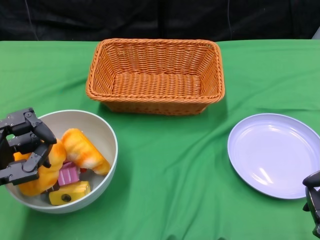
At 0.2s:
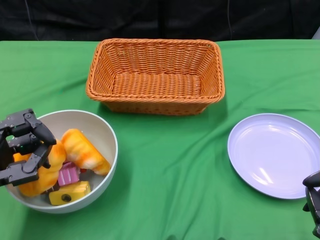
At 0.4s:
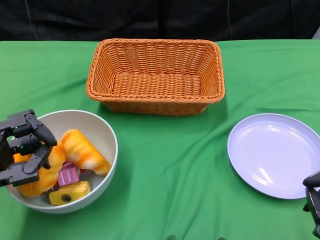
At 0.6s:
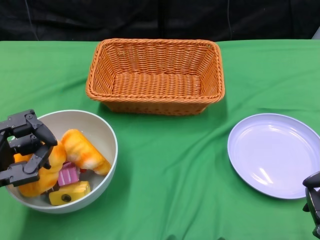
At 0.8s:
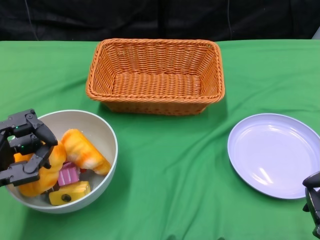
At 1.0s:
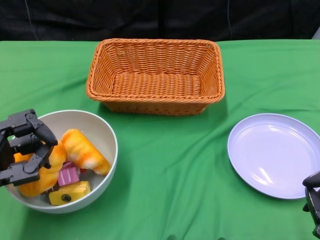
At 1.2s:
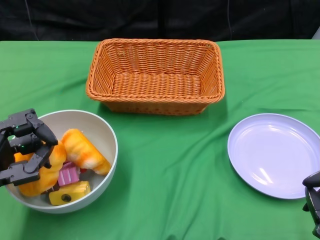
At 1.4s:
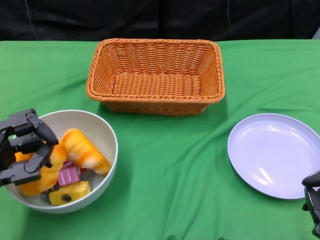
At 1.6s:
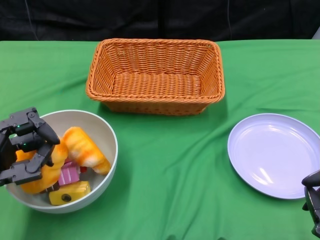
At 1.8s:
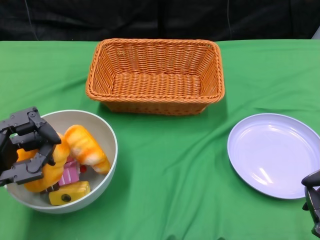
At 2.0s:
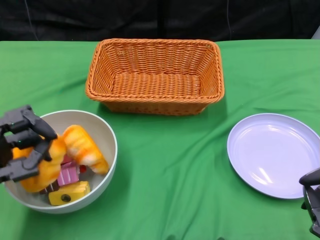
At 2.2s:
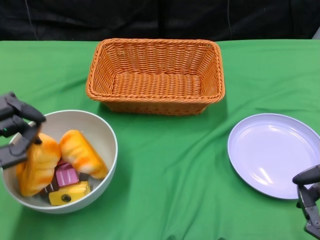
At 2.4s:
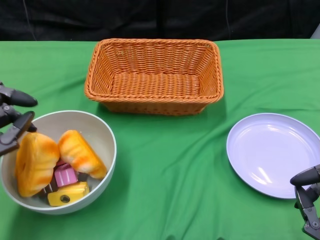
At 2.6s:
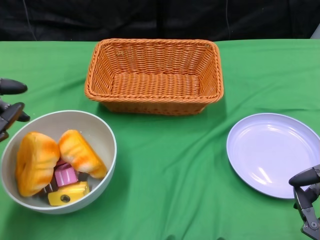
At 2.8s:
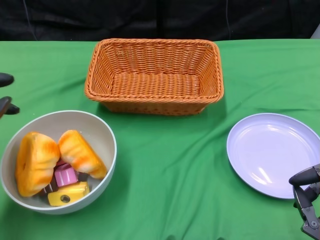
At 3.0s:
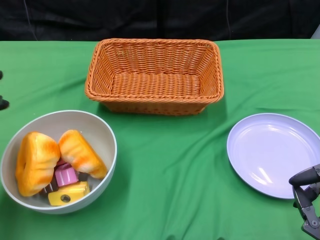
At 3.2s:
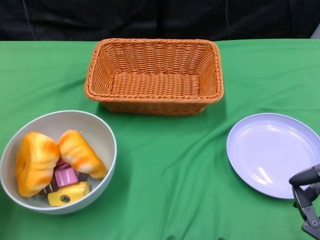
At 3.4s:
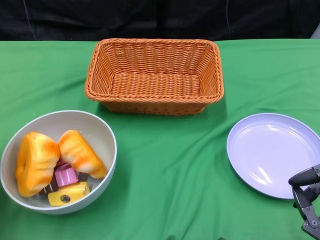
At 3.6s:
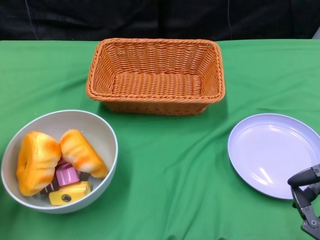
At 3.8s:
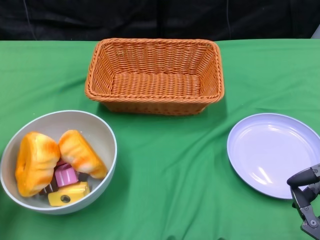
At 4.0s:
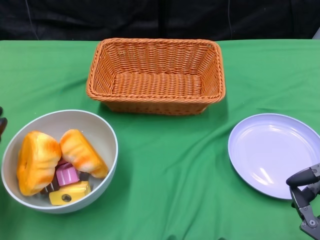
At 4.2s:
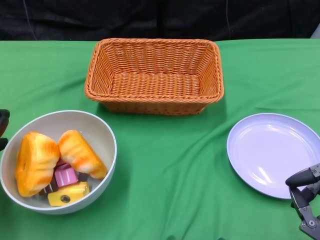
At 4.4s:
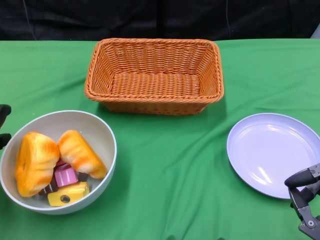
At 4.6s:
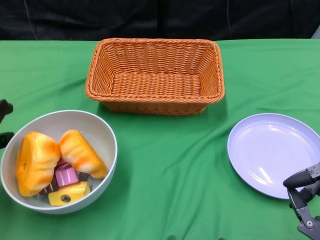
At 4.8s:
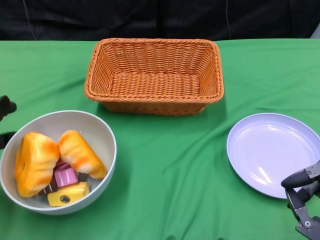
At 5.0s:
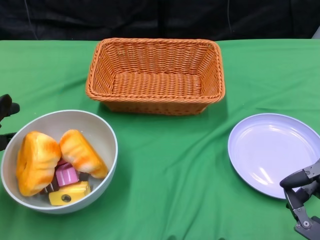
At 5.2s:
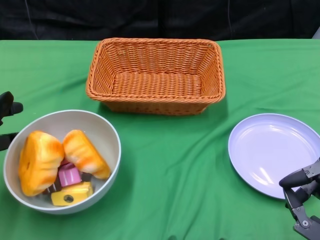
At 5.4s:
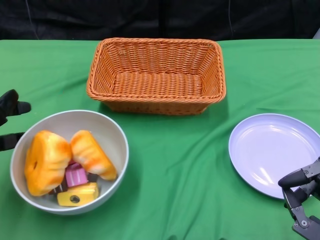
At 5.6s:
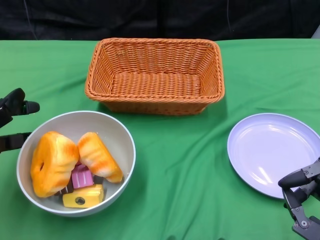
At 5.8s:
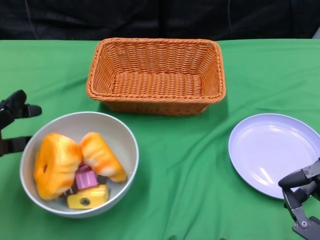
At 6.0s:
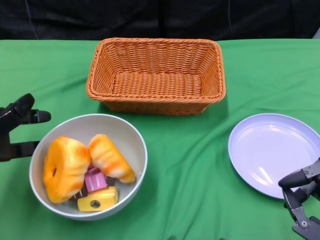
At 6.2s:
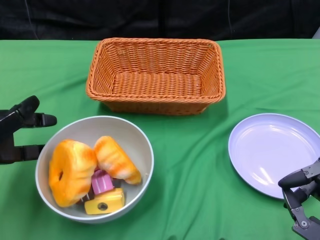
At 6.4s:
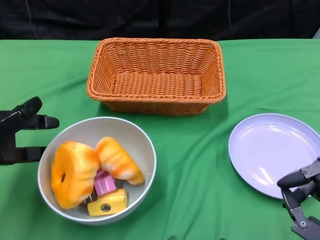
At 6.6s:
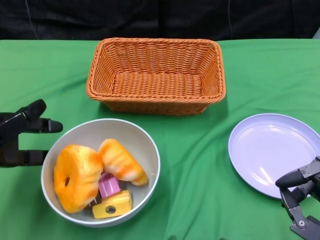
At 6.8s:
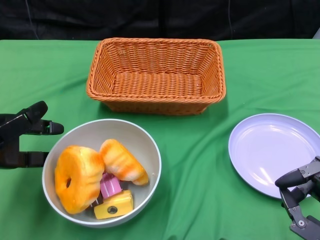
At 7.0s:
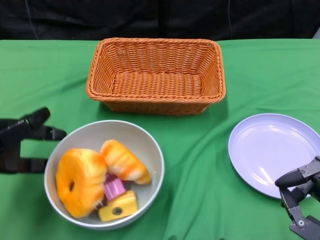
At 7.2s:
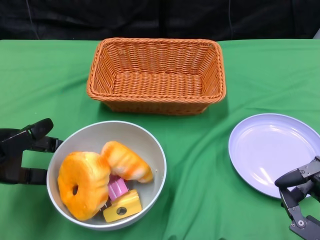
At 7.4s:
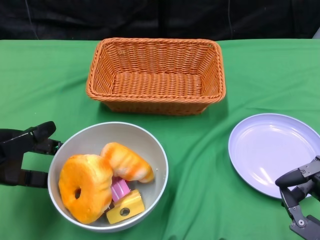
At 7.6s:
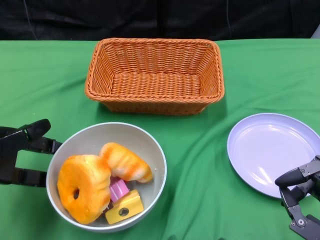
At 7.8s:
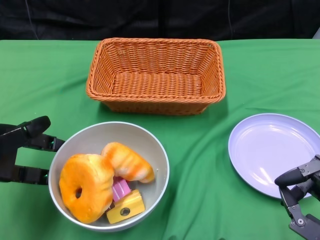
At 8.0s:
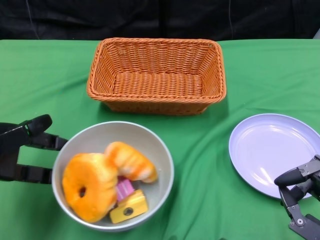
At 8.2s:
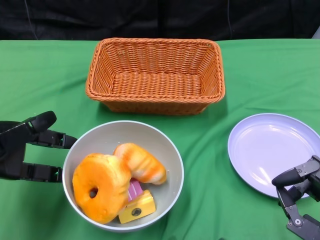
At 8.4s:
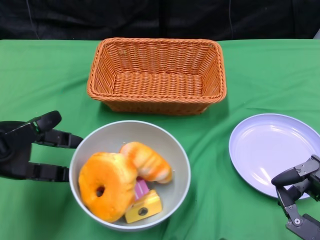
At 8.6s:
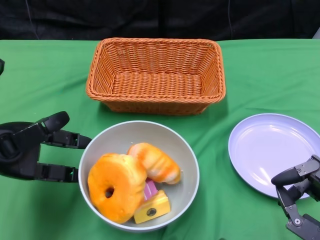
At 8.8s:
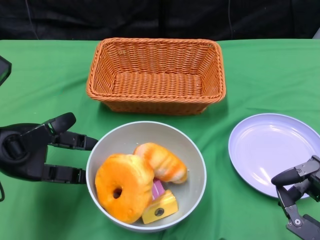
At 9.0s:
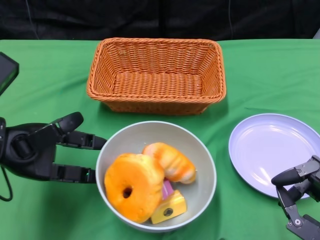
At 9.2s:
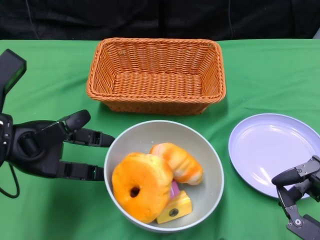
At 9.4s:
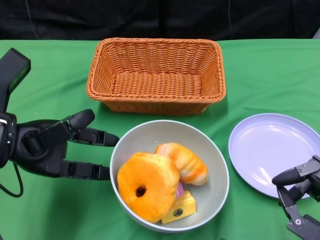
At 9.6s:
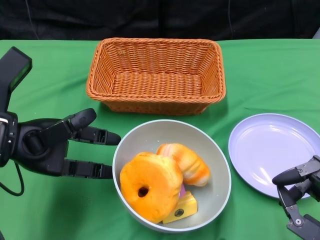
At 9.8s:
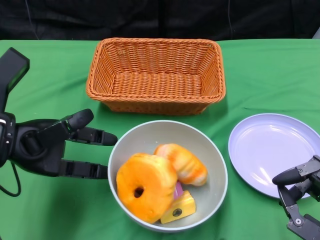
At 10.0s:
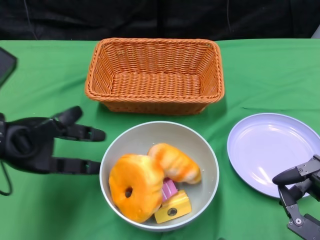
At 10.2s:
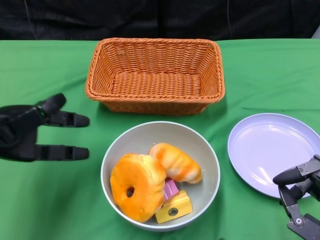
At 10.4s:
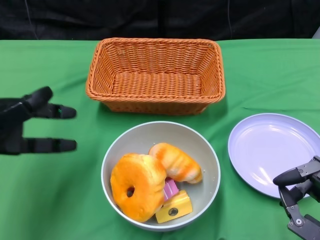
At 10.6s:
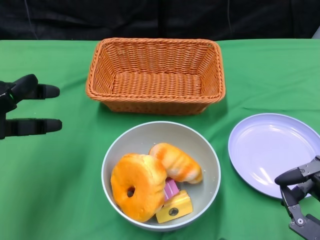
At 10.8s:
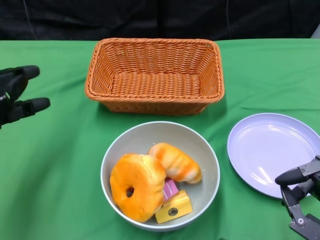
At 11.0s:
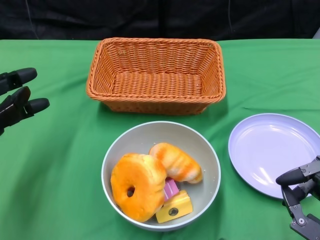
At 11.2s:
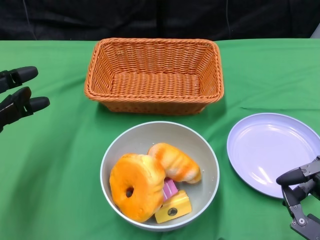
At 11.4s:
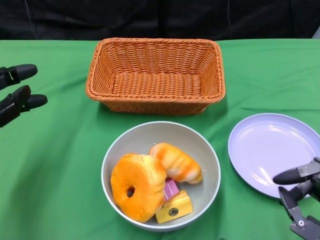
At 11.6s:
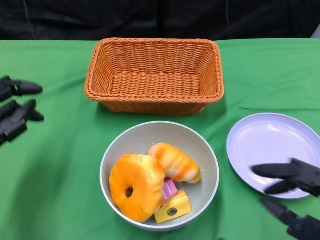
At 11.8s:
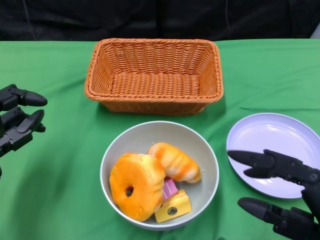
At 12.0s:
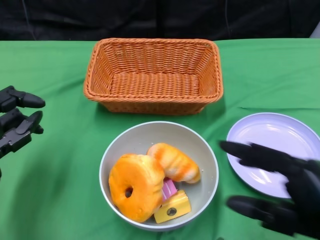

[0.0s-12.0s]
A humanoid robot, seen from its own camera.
Step, 0.0s to 10.6s: Push the bowl to the center of the table using the left gripper.
1.6s to 3.0s: The left hand moves approximately 5 cm.
3.0s to 4.4s: The left hand ends up roughly 5 cm from where it was.
9.0s to 10.4s: The hands make only small movements.
10.4s to 12.0s: The right hand goes approximately 10 cm upward; the left hand moves downward, approximately 10 cm.

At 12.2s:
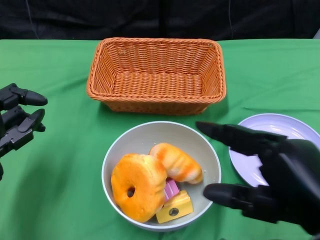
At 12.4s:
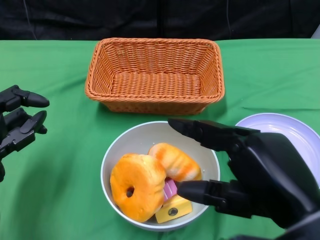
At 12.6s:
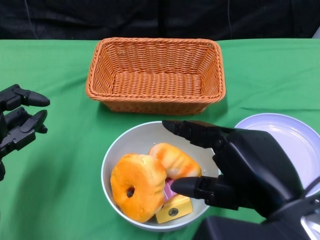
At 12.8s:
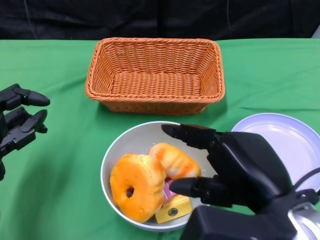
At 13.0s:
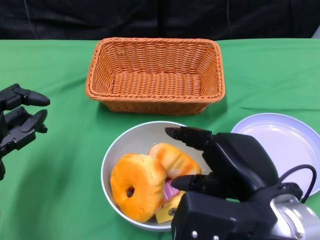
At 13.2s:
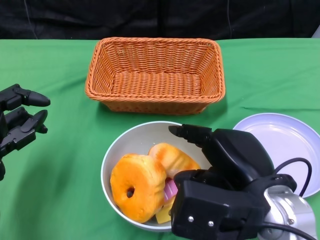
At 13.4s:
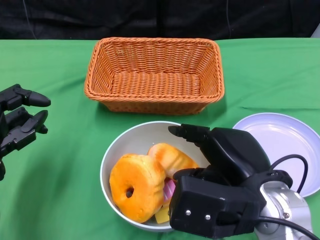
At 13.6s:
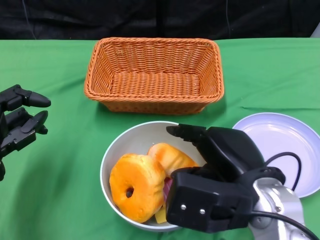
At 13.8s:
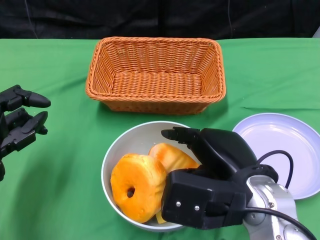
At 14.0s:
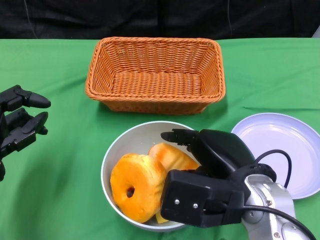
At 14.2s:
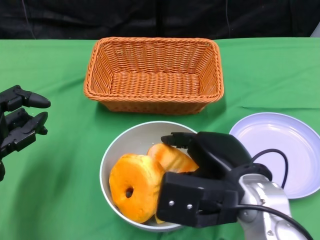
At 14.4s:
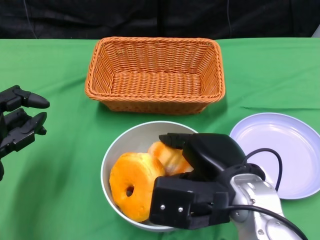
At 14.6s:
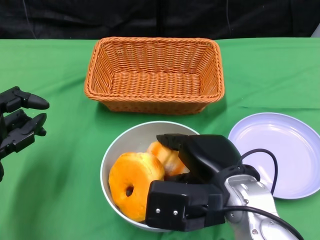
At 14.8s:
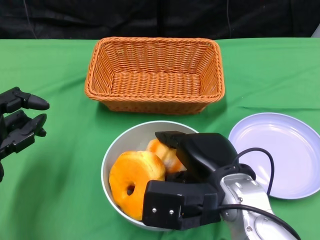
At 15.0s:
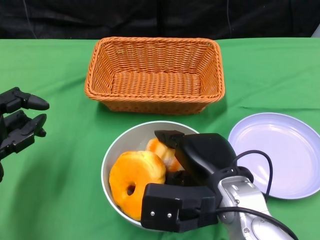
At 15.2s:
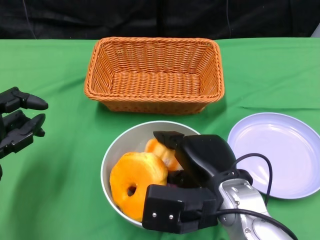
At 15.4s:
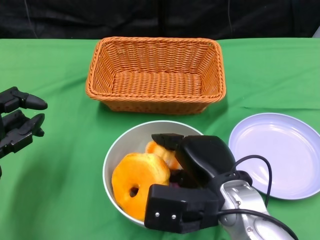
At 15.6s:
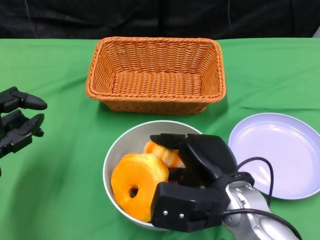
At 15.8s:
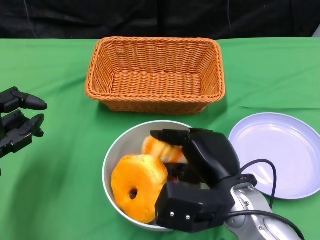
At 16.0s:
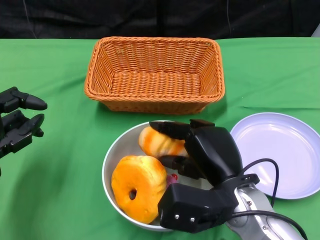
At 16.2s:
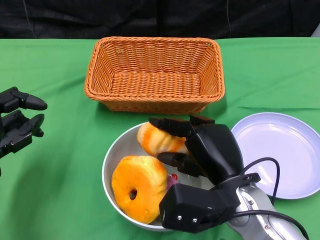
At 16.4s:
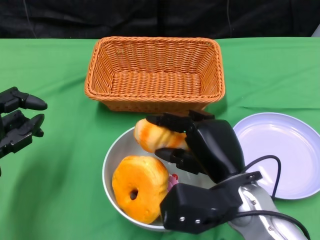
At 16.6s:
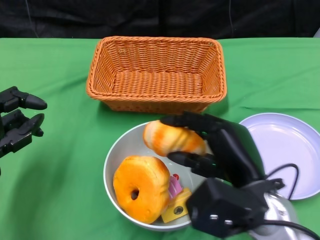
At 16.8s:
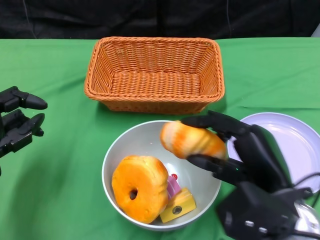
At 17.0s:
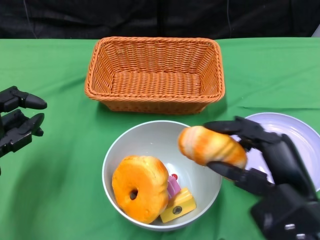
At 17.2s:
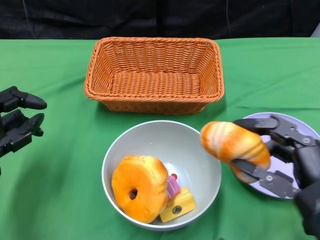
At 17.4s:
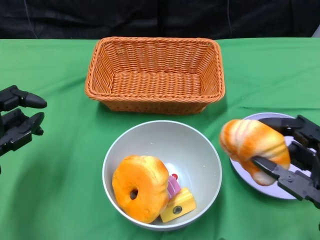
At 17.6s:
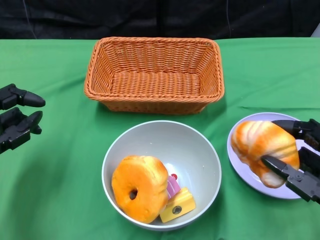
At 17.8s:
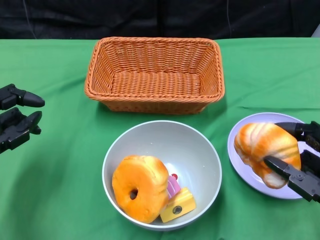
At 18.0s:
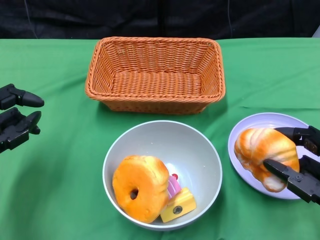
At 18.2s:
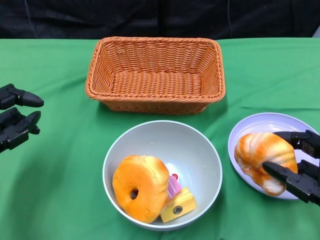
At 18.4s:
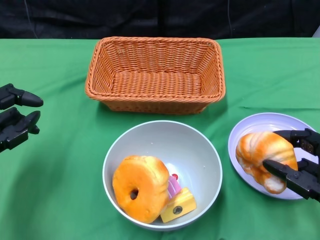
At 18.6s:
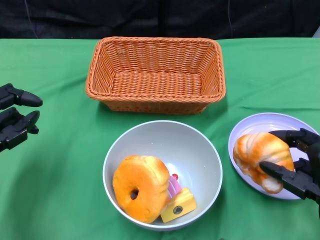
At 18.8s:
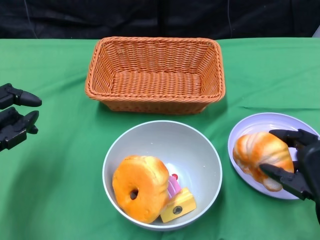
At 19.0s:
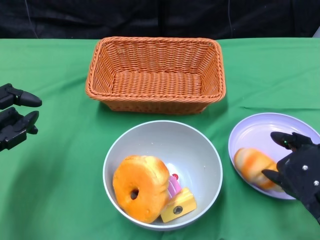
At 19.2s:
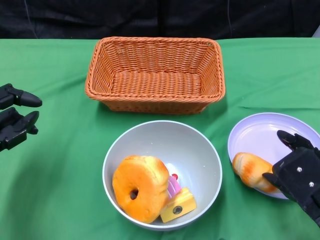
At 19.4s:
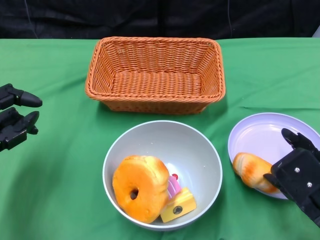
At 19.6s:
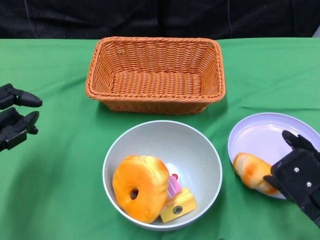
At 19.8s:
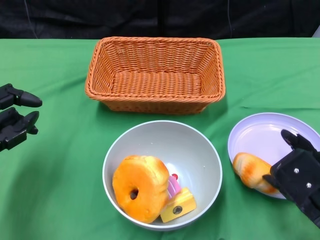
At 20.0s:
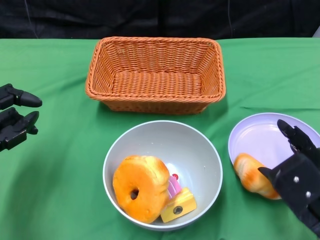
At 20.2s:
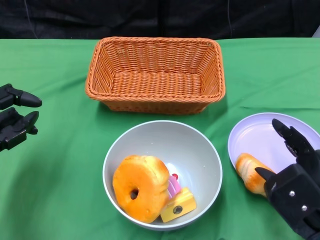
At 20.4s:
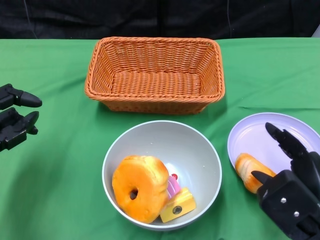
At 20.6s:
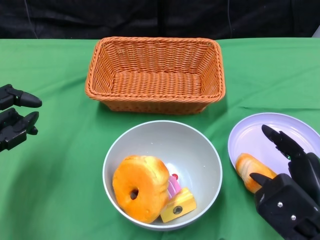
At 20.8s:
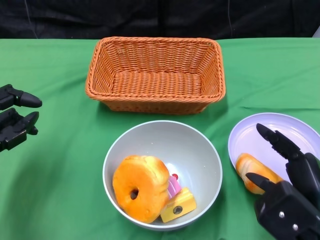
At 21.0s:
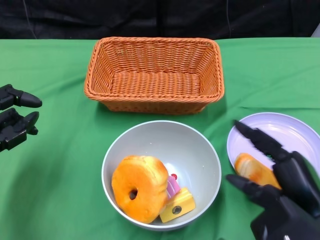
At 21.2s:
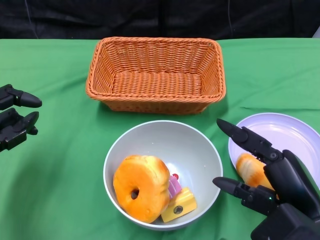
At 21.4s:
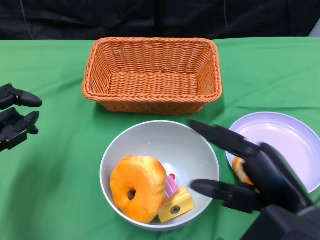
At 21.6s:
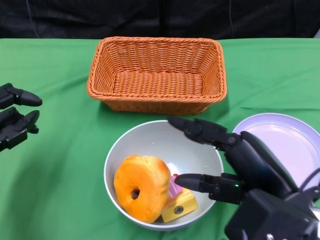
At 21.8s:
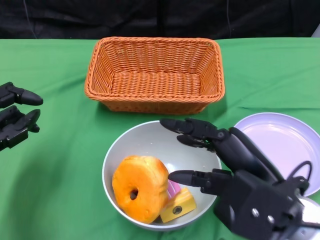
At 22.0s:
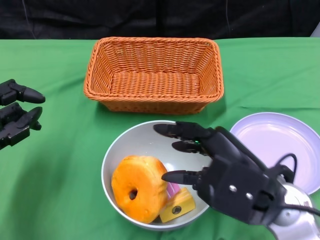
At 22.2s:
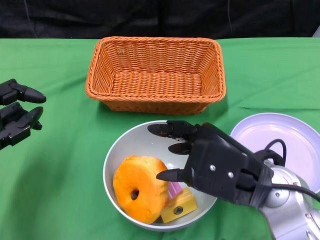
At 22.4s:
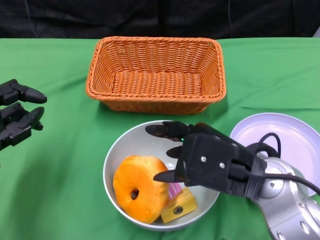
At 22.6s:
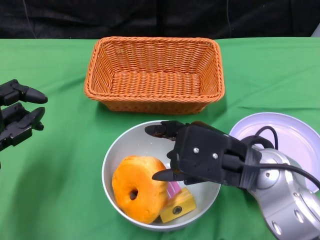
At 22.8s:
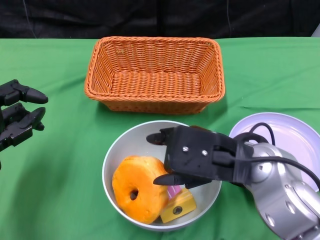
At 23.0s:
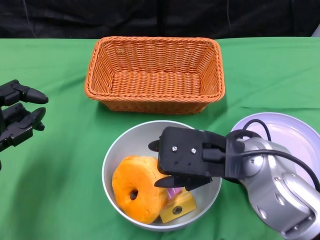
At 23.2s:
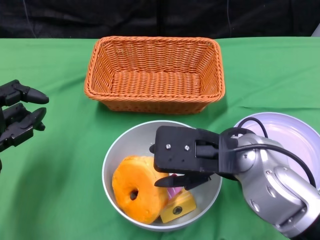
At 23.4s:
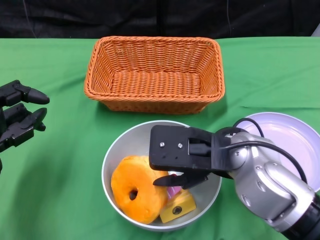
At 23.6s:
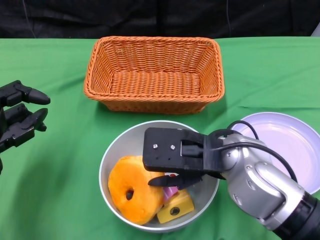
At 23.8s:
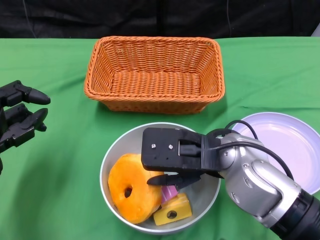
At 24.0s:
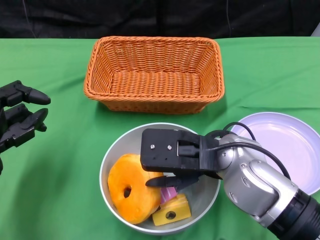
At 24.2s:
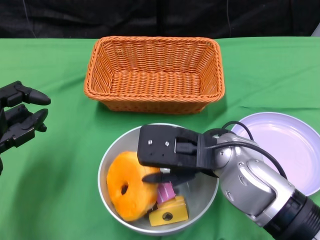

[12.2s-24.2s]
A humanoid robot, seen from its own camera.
12.2s to 13.8s: The right hand goes roughly 10 cm forward, to the left and downward.
13.8s to 15.2s: The hands stay close to where they were, moving slightly.
16.6s to 18.2s: The right hand heads to the right, covering approximately 10 cm.
19.8s to 21.2s: The right hand moves about 5 cm.
21.2s to 22.6s: The right hand is displaced forward and to the left by about 10 cm.
22.6s to 24.2s: The right hand moves some 5 cm.
